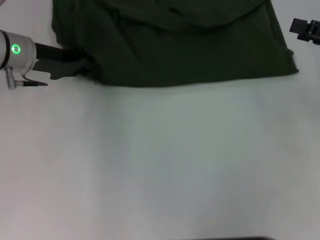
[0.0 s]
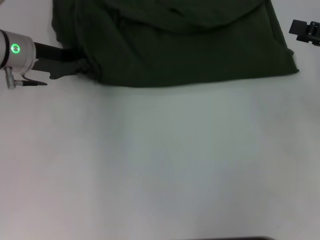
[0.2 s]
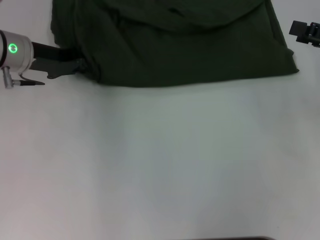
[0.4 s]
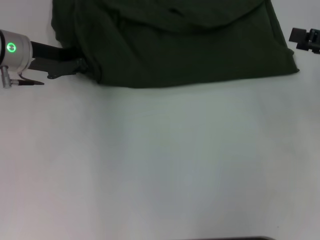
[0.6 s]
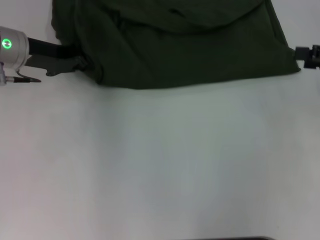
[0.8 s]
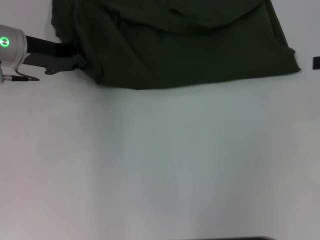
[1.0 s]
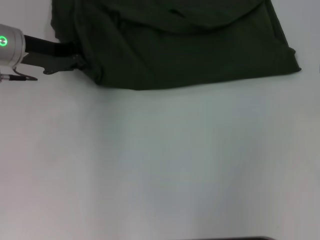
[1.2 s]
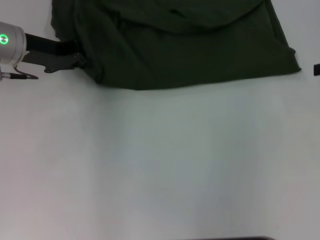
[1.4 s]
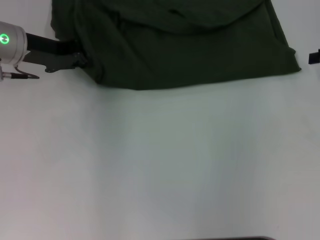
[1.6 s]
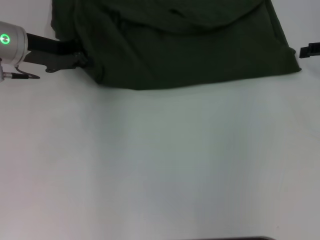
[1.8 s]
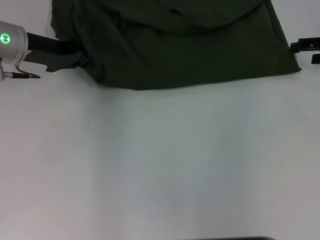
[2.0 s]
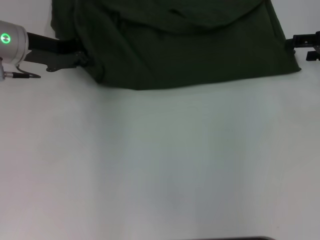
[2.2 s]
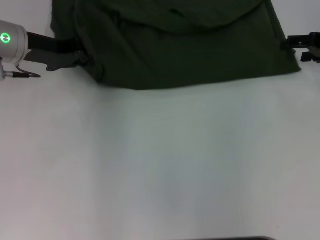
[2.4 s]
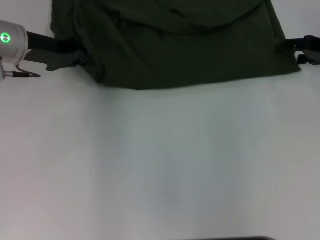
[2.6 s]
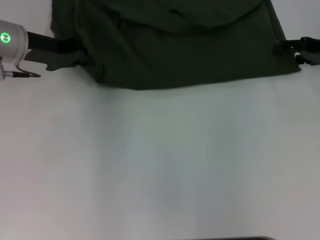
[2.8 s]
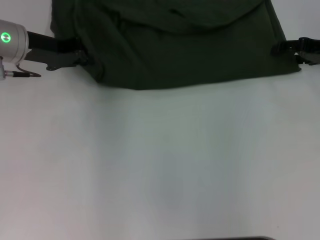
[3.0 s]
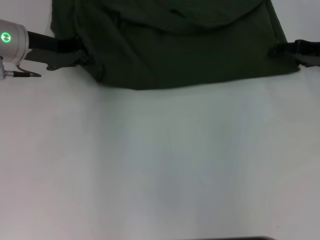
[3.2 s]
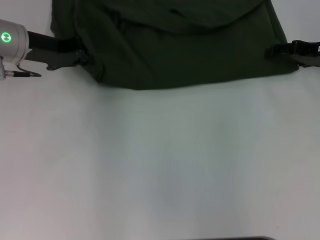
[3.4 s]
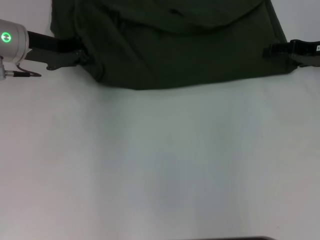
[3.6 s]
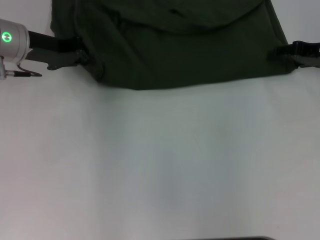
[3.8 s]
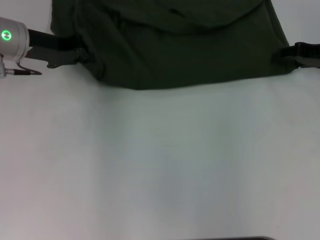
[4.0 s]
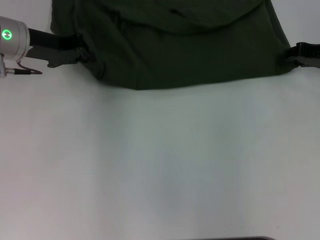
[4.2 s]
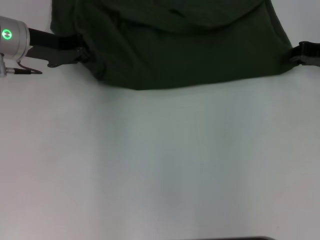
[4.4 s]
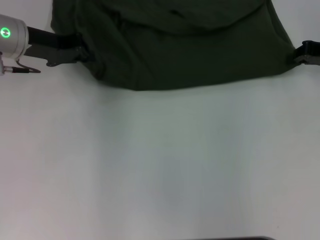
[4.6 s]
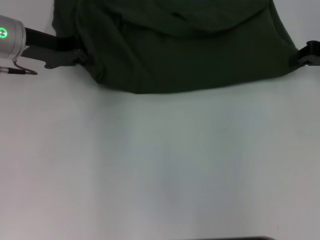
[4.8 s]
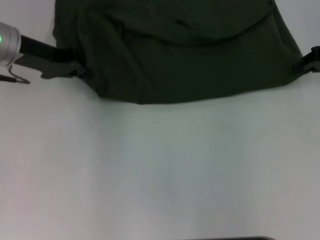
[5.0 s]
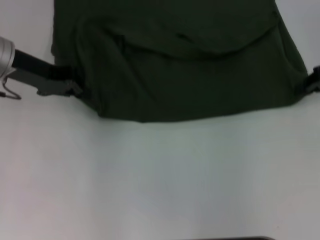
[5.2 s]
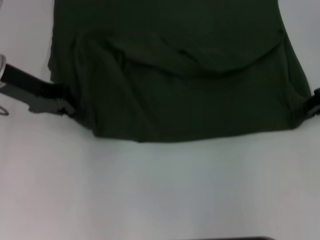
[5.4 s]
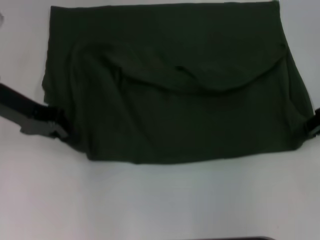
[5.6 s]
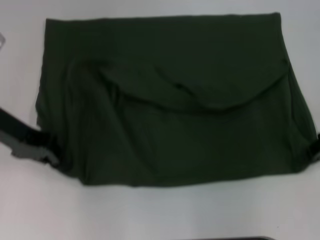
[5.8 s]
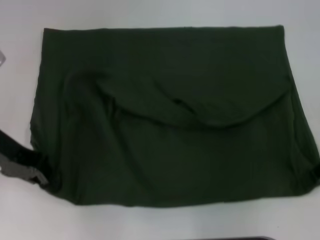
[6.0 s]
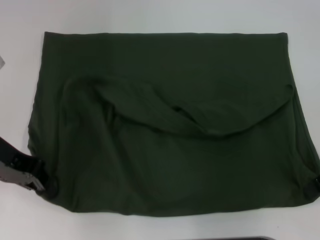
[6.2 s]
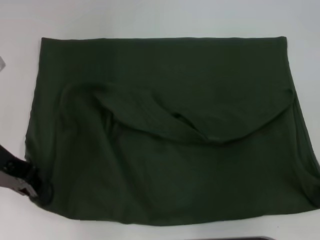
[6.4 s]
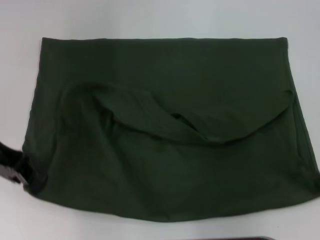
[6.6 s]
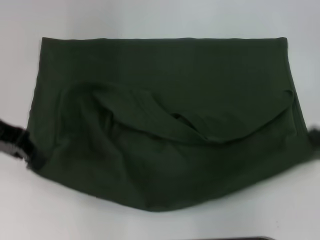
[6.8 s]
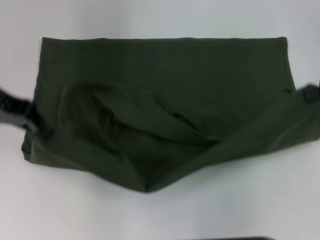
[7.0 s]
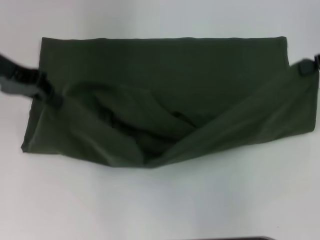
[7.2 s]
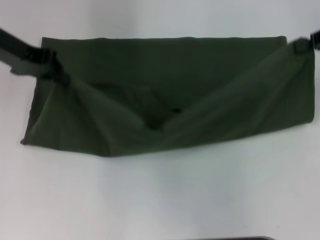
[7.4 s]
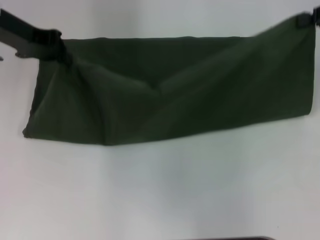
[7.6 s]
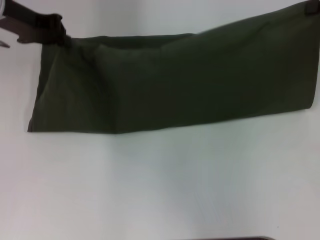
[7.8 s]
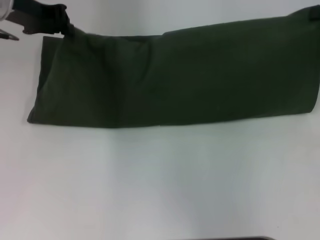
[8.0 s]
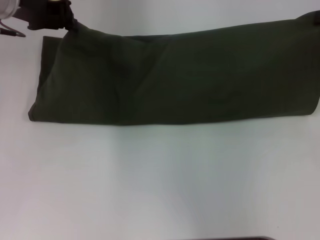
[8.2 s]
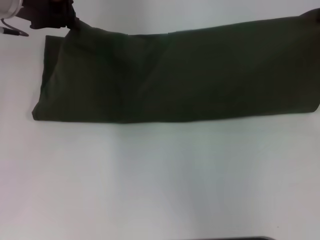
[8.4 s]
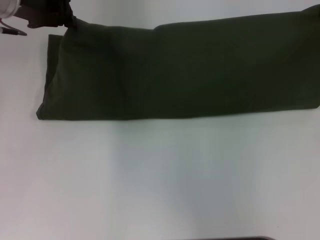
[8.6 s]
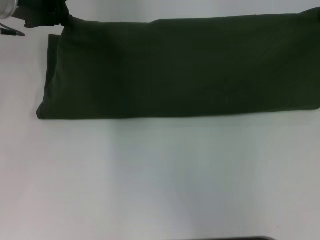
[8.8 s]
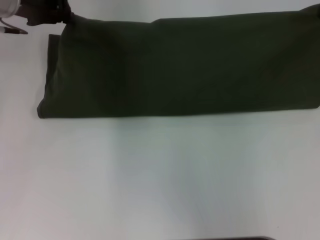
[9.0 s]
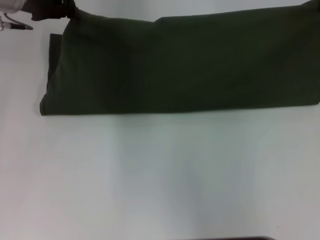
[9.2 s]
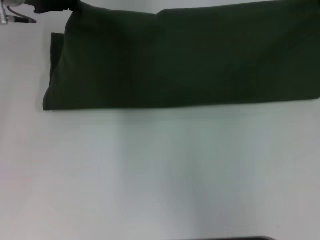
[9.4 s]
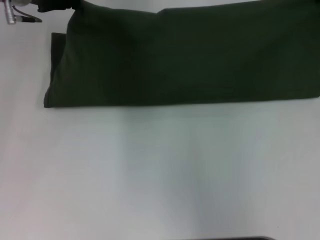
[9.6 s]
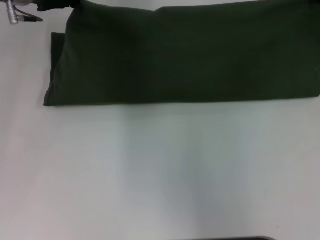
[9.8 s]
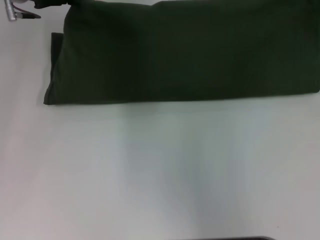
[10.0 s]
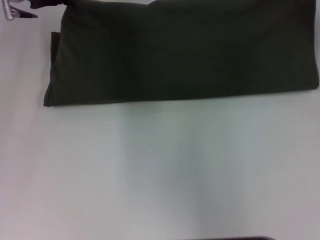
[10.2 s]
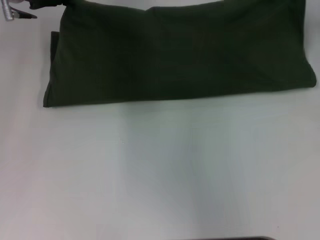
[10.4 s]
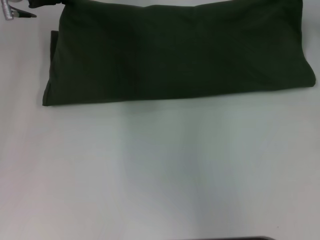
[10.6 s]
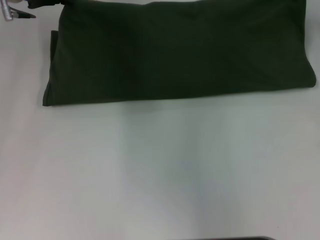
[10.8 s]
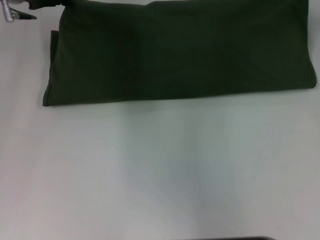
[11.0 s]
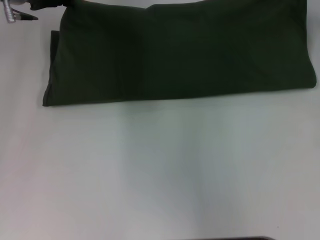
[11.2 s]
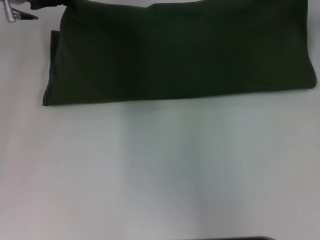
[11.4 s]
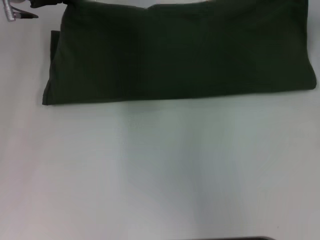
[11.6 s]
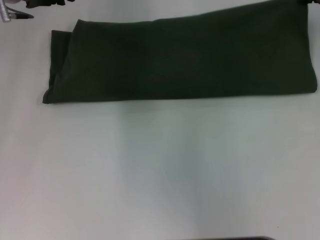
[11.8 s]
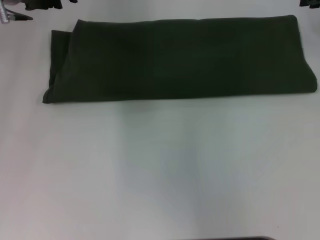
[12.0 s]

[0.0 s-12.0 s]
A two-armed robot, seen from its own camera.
Step, 0.0 to 6.2 s: Pull the clothes with your left hand.
Step, 0.0 to 6.2 s: Pull the clothes with your right hand.
Step, 6.4 to 11.6 s: Fold the clothes with your left hand.
0.0 to 1.6 s: The left gripper closes up; the right gripper heads forward, covering about 5 cm.
1.6 to 3.0 s: The right gripper shifts by some 5 cm.
4.4 to 6.0 s: Both grippers travel together backward, some 10 cm.
6.0 to 7.6 s: The right gripper is displaced upward and forward by some 15 cm, while the left gripper goes some 10 cm forward and upward.
9.0 to 10.4 s: The right gripper ends up approximately 5 cm from where it was.
10.4 to 12.0 s: There are only small adjustments of the grippers.

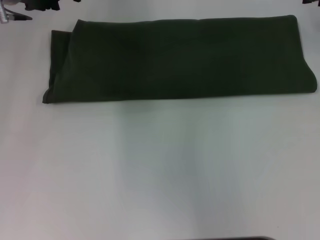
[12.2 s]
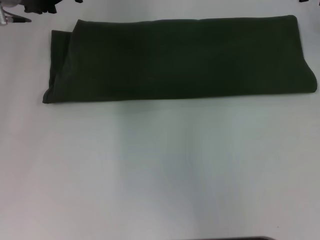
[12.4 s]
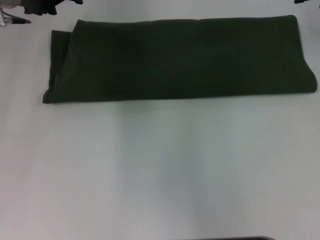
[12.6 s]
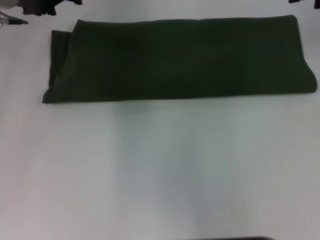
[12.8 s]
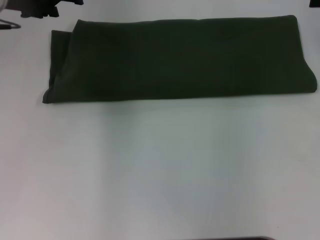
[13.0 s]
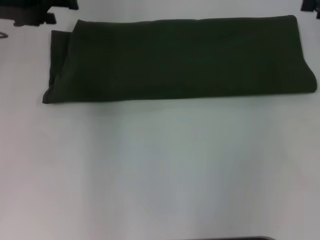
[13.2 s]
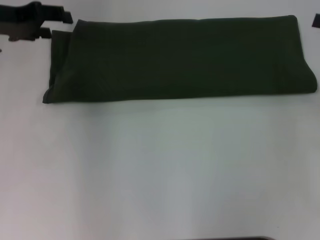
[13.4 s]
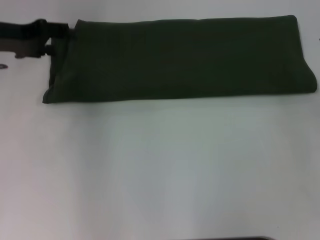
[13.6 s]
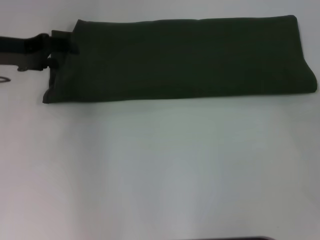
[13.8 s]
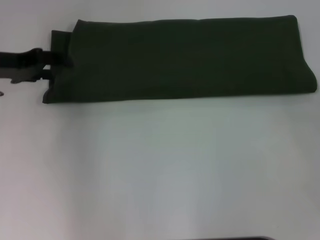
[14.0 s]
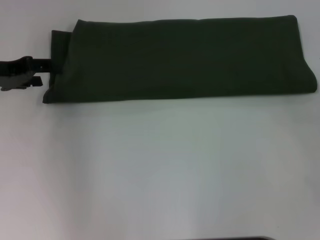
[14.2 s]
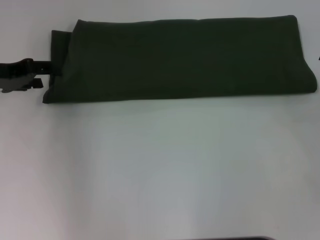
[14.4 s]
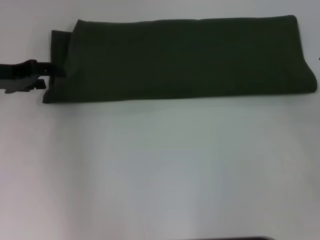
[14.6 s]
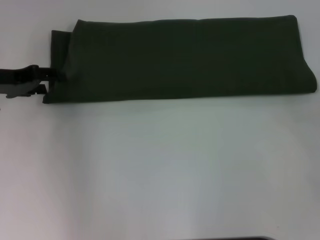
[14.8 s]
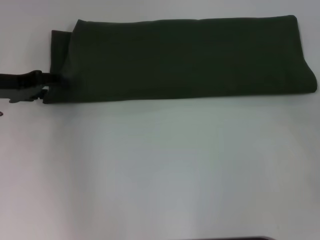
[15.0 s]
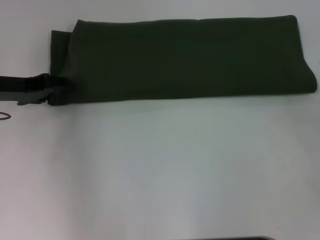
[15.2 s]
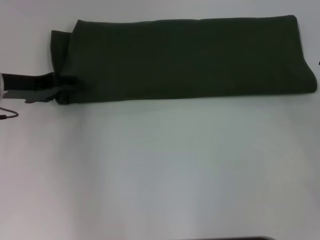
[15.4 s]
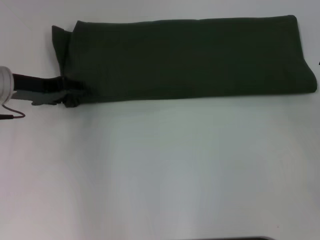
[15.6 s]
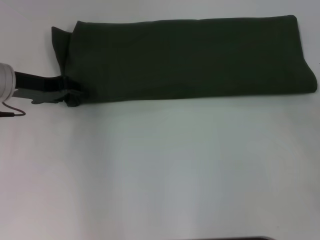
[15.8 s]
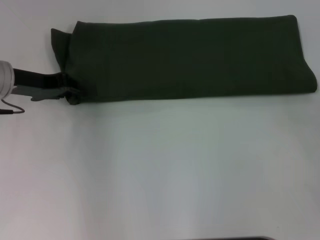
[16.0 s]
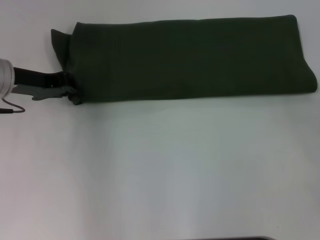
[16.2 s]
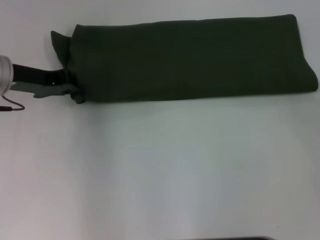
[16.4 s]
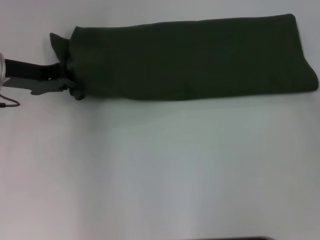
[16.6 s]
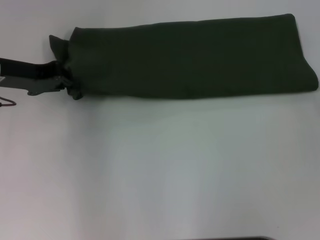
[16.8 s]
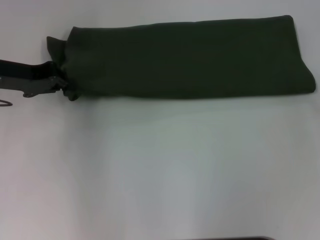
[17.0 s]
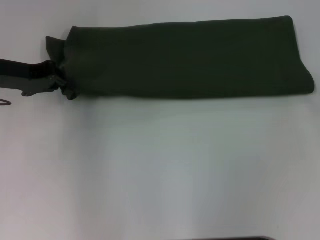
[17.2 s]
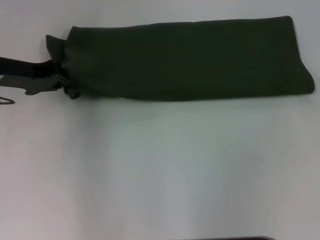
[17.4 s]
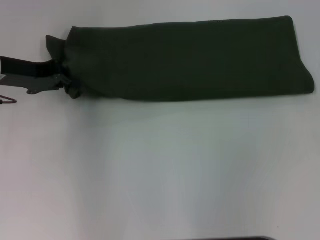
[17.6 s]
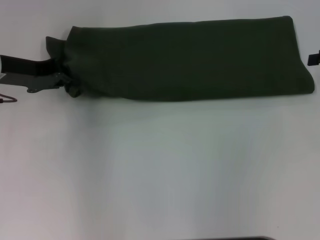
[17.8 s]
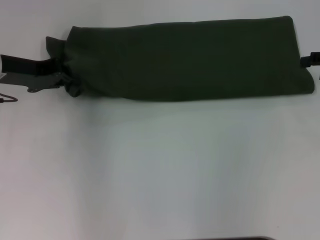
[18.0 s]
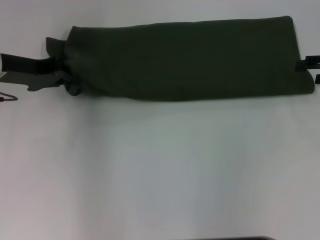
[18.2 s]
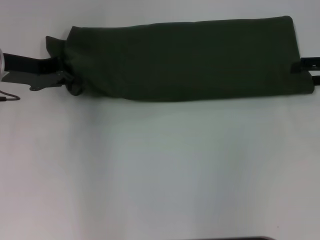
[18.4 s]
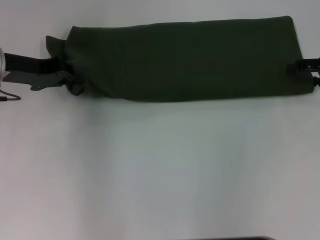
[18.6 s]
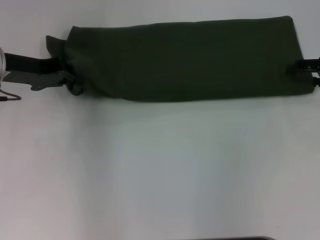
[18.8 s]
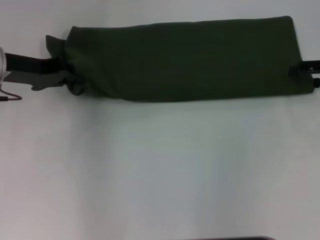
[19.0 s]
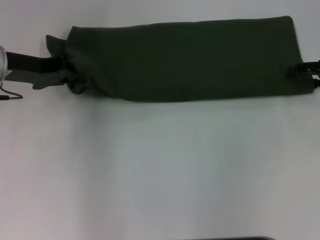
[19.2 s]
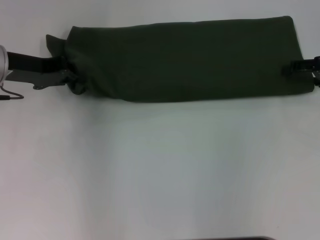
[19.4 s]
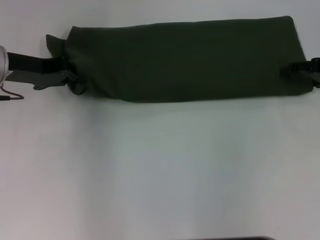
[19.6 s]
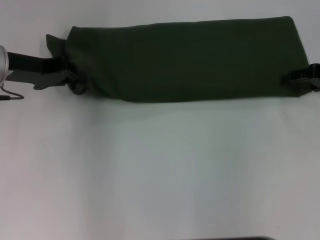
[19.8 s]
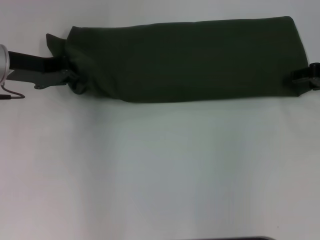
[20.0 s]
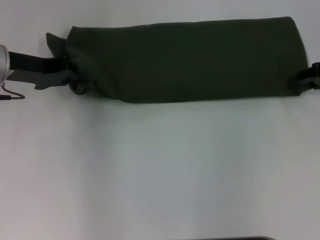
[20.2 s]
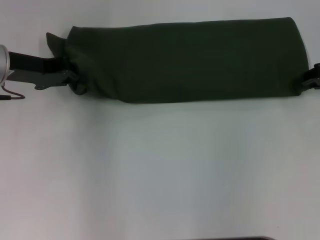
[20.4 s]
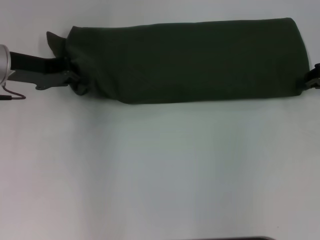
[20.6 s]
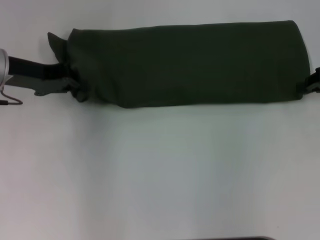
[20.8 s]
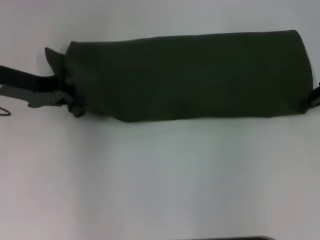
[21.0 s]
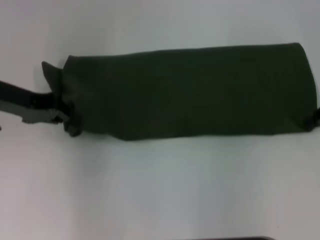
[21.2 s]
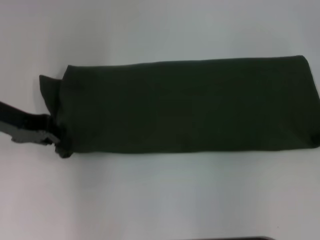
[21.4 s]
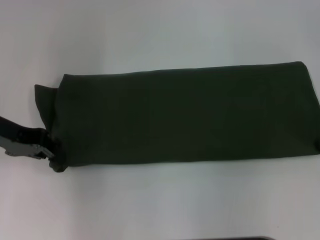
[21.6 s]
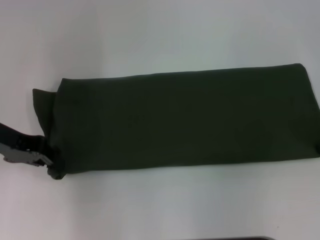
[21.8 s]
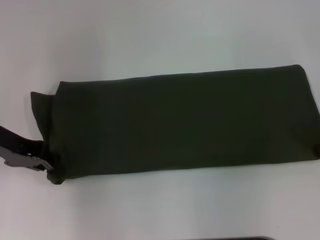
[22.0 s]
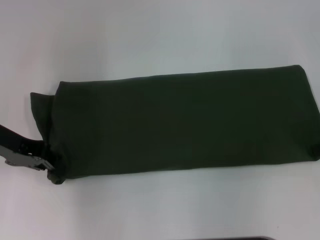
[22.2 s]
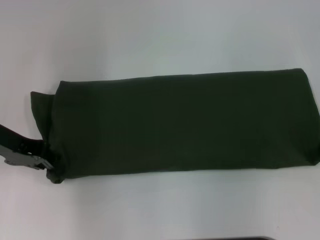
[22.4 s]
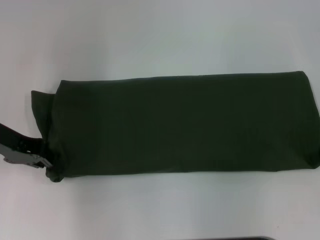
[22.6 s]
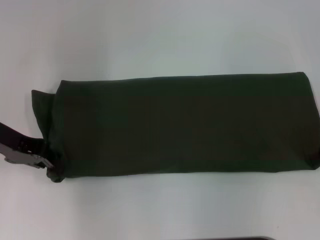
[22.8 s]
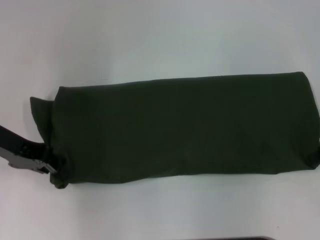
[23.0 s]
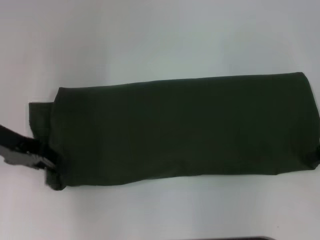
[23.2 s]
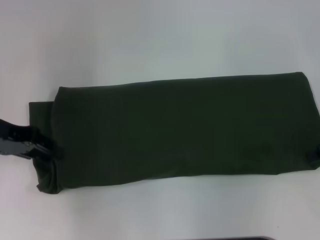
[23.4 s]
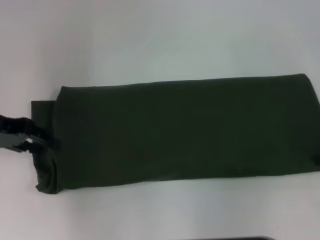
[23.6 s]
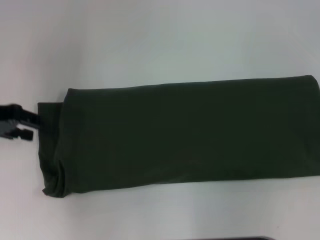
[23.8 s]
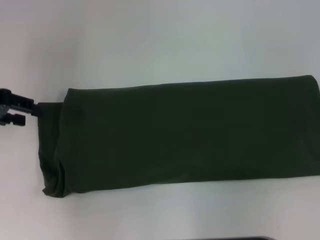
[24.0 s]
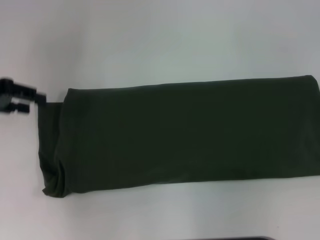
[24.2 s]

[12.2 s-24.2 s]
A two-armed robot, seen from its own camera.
Step, 12.2 to 23.4 s: Pull the clothes with your left hand.
Step, 23.6 to 23.8 s: Pull the clothes with your right hand.
12.2 to 13.8 s: The left gripper heads backward and to the left, covering about 10 cm, and opens its fingers. The right gripper is displaced backward by some 15 cm, and opens up.
13.8 to 15.2 s: The left gripper moves some 5 cm.
15.2 to 16.6 s: The left gripper closes its fingers.
16.6 to 18.2 s: The right gripper goes roughly 10 cm forward.
18.2 to 19.8 s: The grippers stay close to where they were, moving slightly.
19.8 to 21.2 s: The right gripper closes its fingers.
22.6 to 24.2 s: The left gripper moves some 5 cm, and opens; the right gripper is displaced to the right by roughly 5 cm, and opens its fingers.
